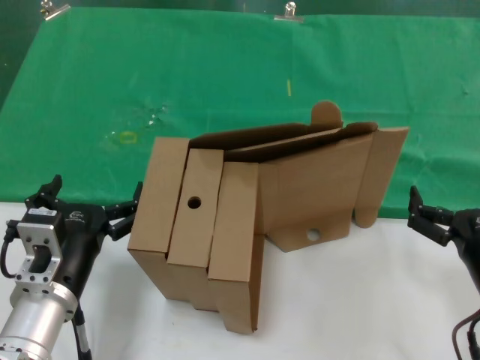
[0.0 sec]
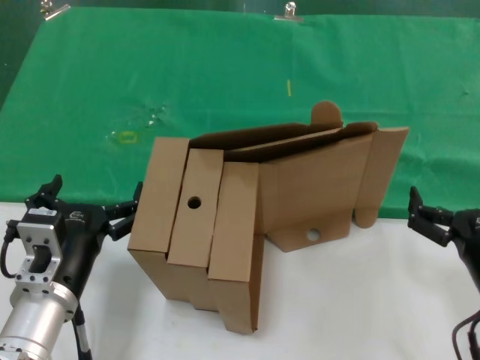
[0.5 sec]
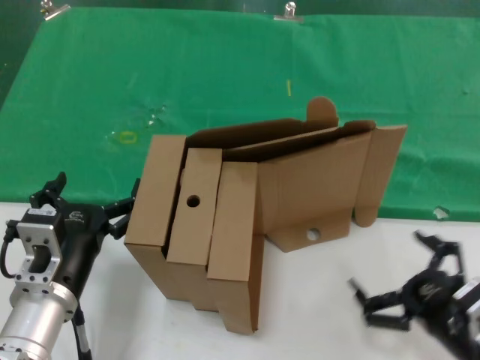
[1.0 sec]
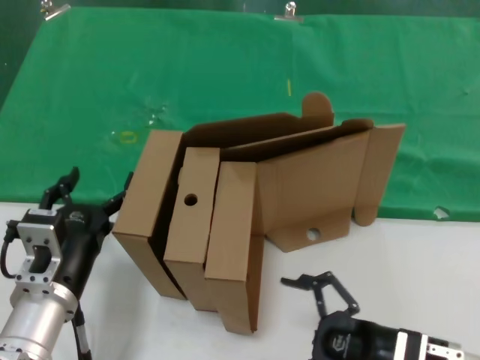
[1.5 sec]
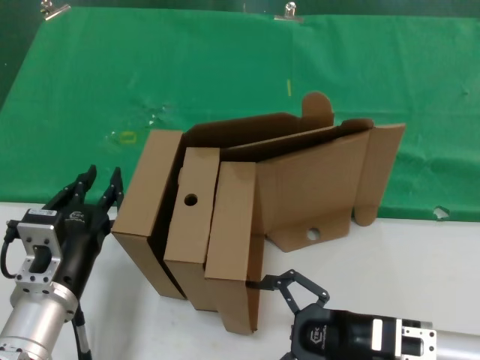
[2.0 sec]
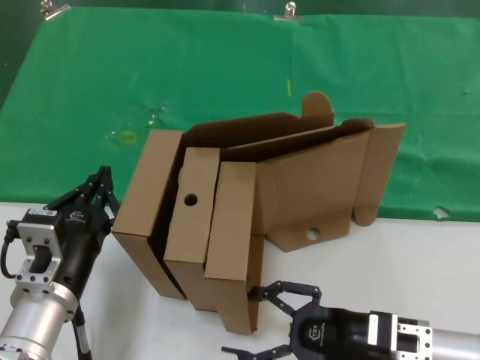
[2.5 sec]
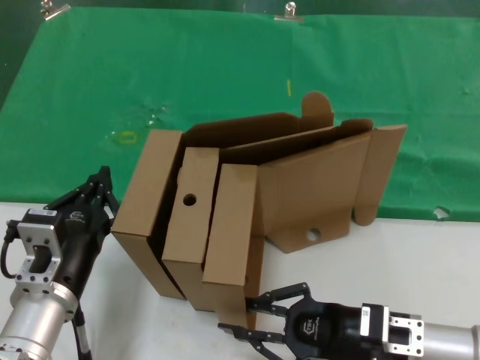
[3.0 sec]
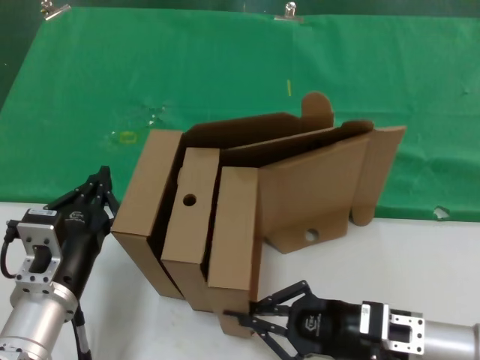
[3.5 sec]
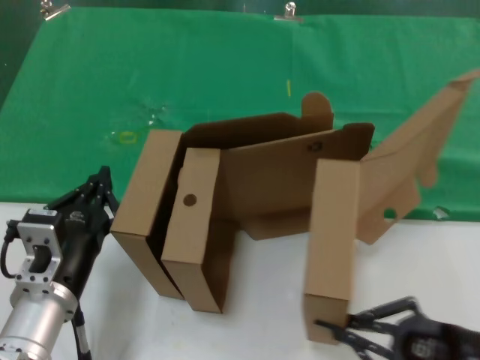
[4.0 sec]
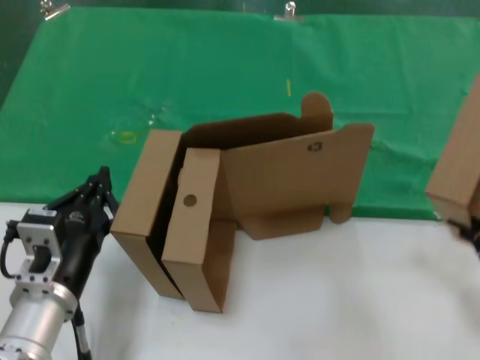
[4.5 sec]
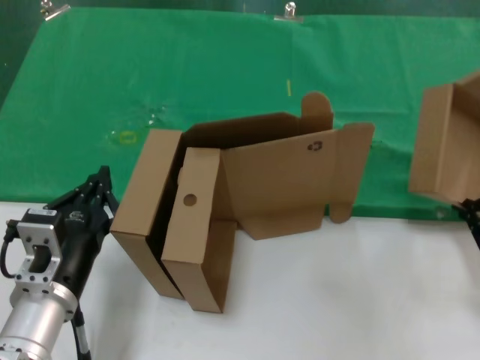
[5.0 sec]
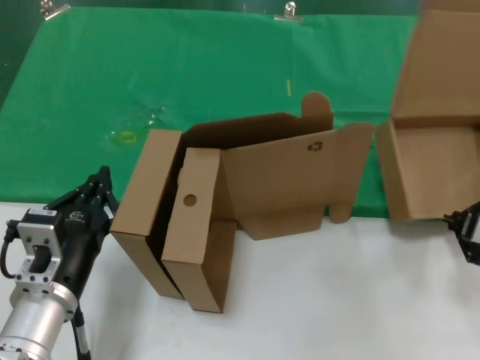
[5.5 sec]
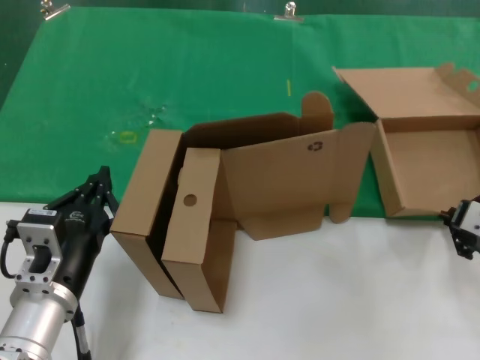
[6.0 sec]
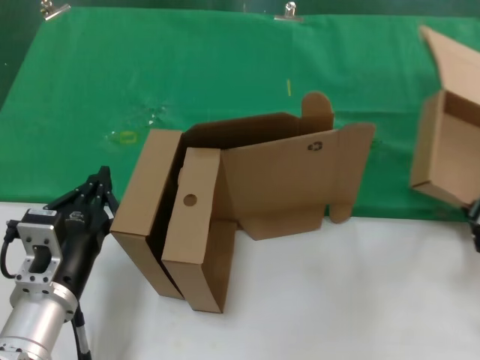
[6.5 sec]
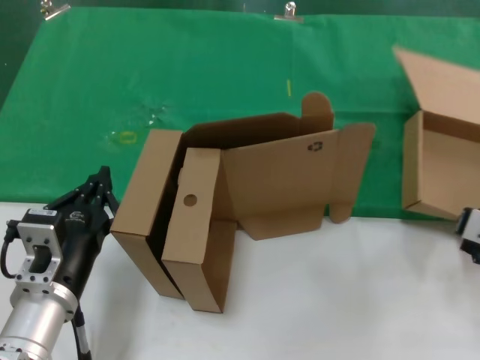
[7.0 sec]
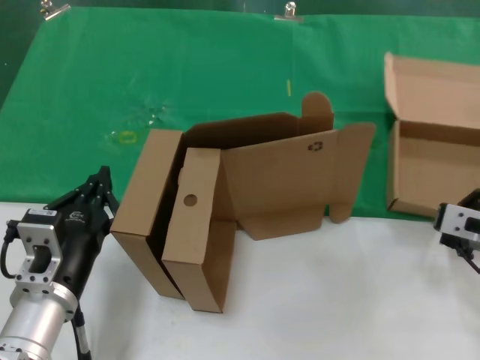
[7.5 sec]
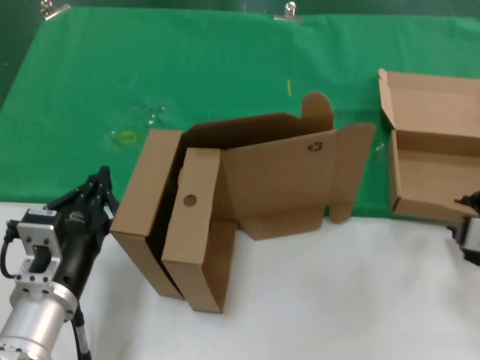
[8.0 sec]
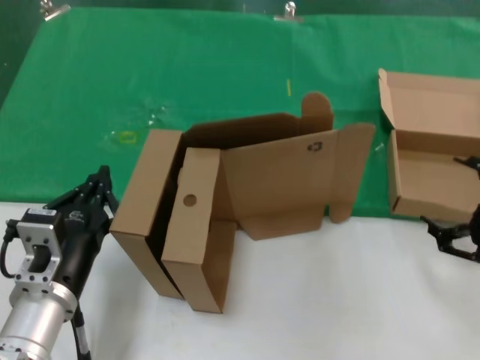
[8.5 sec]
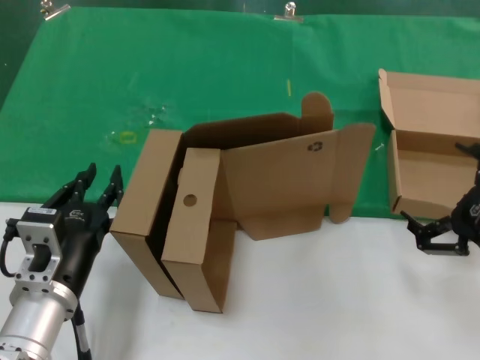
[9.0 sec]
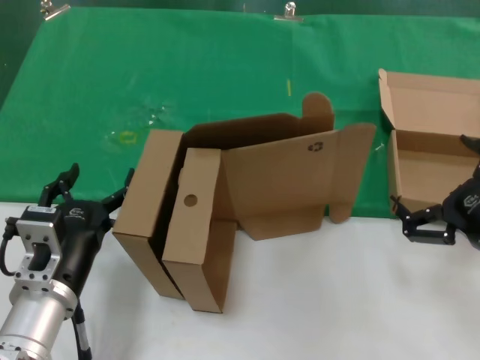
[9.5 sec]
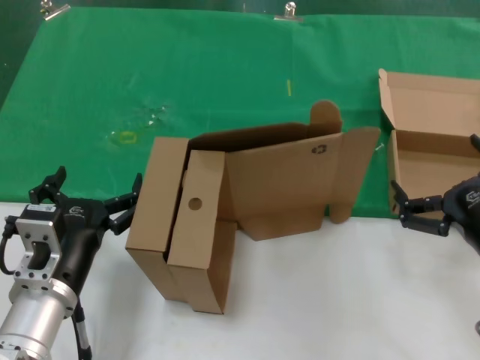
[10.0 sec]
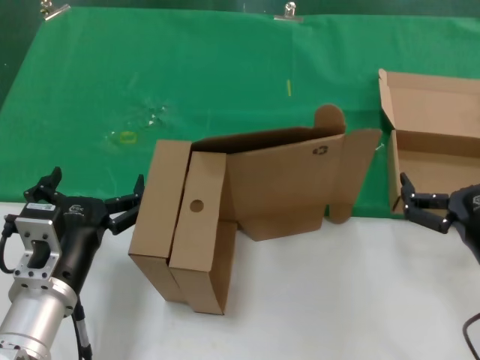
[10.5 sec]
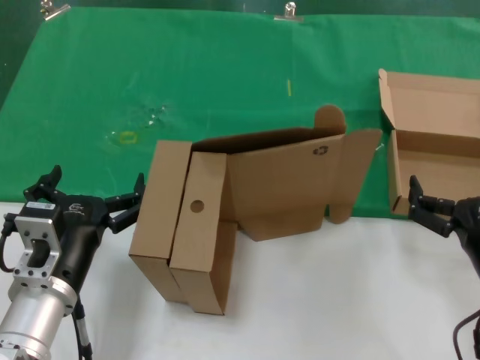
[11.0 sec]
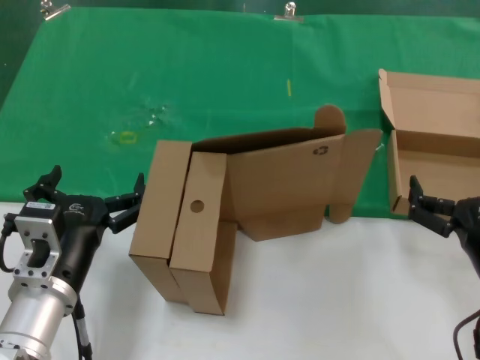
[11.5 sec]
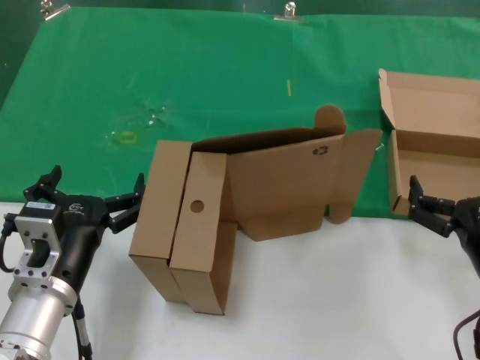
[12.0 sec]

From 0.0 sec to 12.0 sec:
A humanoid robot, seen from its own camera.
Task of the whole recording: pick up the paper box and put it at the back.
Step, from 0.0 sec to 3.5 sec: Grasp the paper box.
Step, from 4.0 sec to 7.5 sec: Place the paper box on the table.
From 0.0 sec to 2.0 sec: The right hand goes approximately 5 cm to the left.
From 2.0 sec to 4.0 sec: The right hand shifts about 10 cm to the right and backward.
From 4.0 sec to 6.0 sec: The right hand heads forward, covering some 15 cm.
From 6.0 sec to 8.0 sec: The hands move only a little.
From 8.0 sec to 10.0 sec: The right hand moves backward, approximately 5 cm.

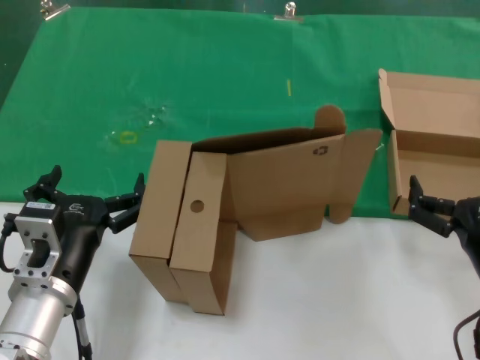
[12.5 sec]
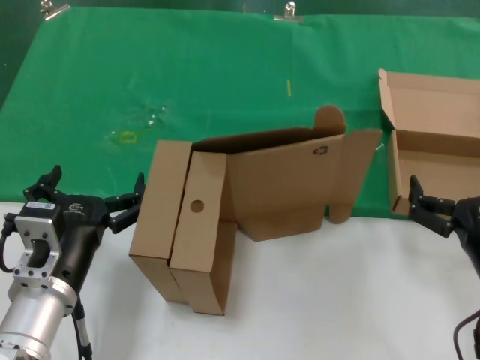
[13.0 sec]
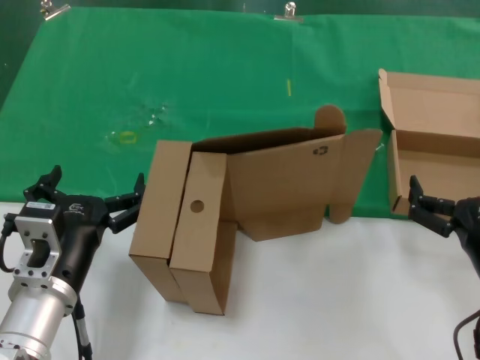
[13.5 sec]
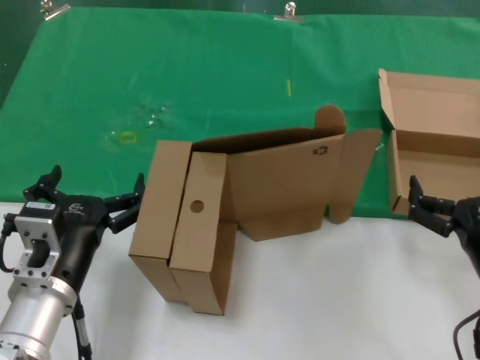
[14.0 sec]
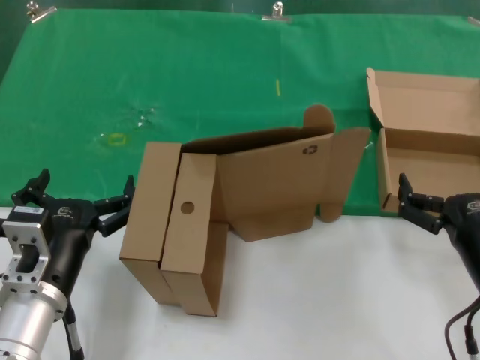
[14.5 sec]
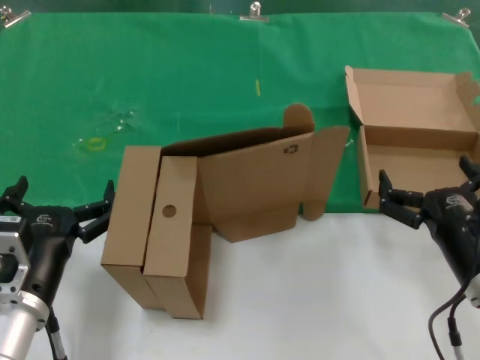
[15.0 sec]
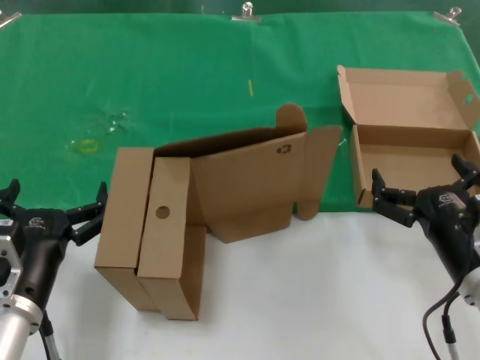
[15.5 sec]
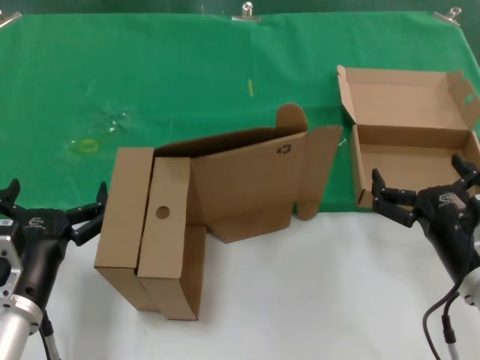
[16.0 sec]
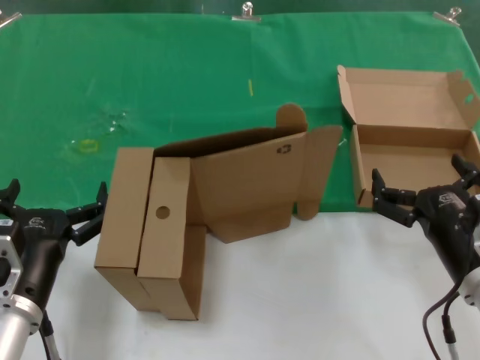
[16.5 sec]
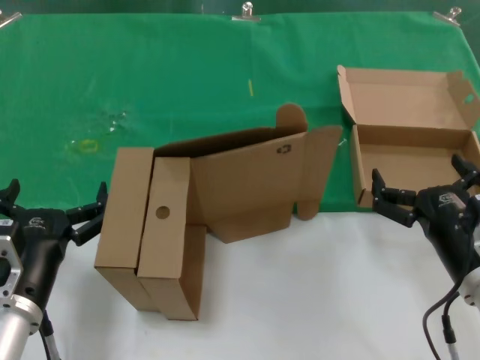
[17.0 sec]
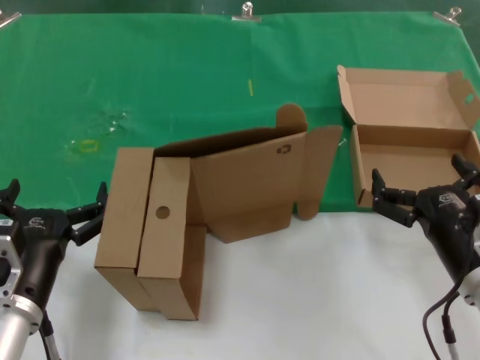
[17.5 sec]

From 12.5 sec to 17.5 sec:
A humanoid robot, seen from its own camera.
Task of the whole recording: pick up the paper box and put it at the back.
From 15.0 sec to 17.5 sec: Both hands stay put.
